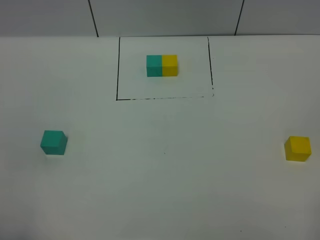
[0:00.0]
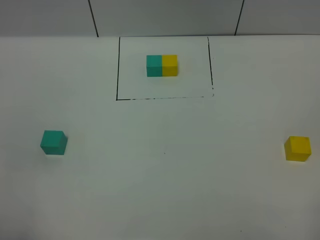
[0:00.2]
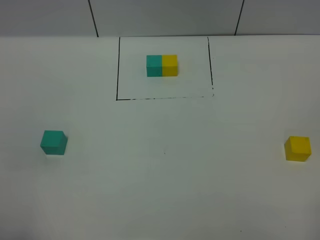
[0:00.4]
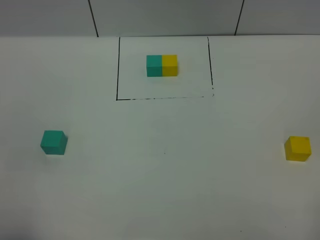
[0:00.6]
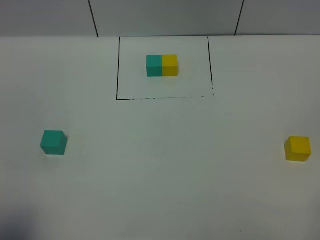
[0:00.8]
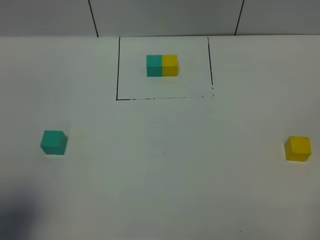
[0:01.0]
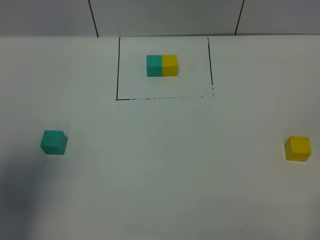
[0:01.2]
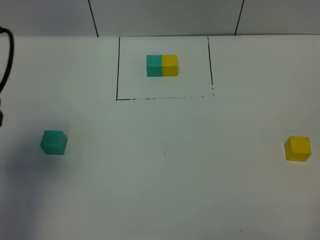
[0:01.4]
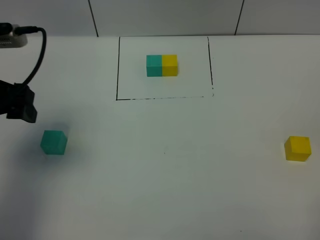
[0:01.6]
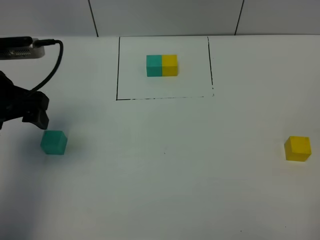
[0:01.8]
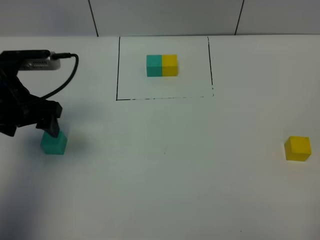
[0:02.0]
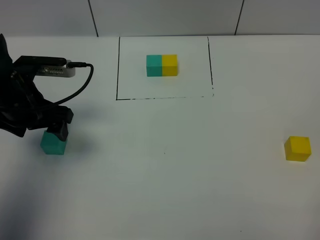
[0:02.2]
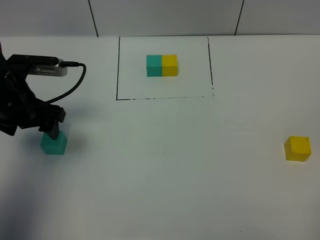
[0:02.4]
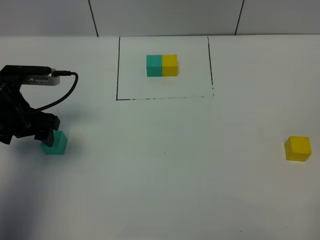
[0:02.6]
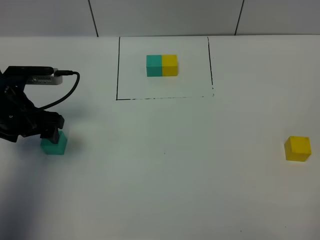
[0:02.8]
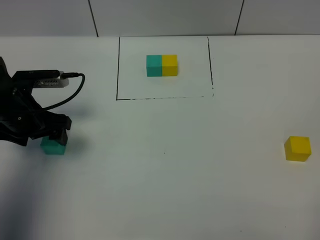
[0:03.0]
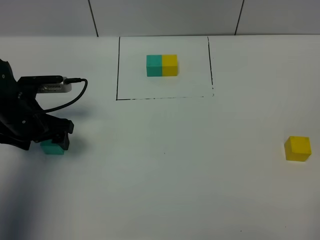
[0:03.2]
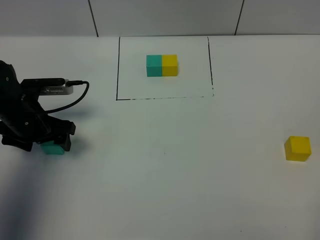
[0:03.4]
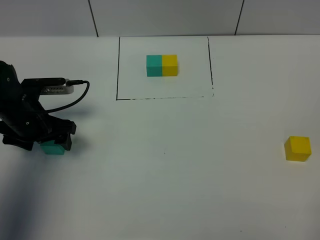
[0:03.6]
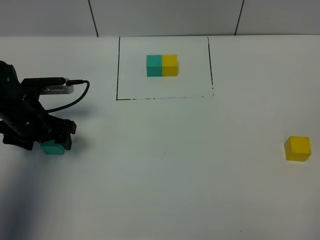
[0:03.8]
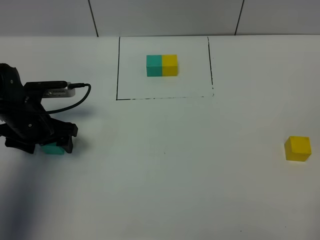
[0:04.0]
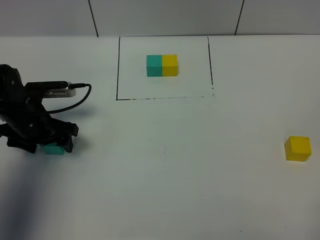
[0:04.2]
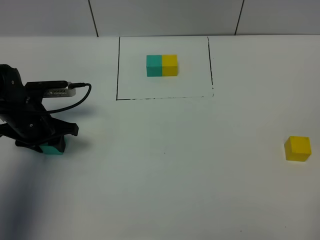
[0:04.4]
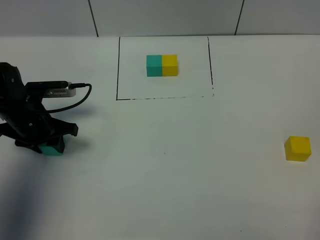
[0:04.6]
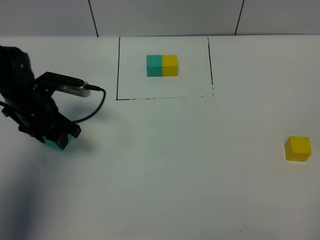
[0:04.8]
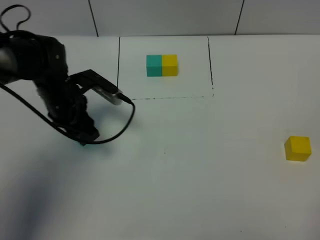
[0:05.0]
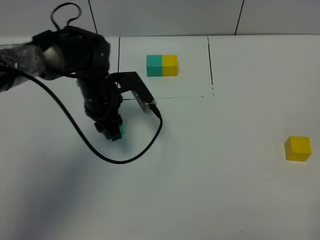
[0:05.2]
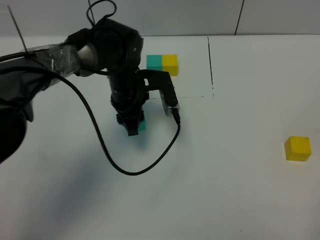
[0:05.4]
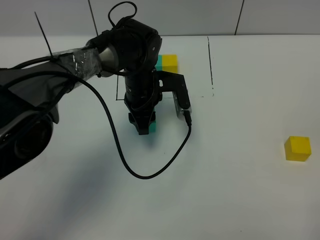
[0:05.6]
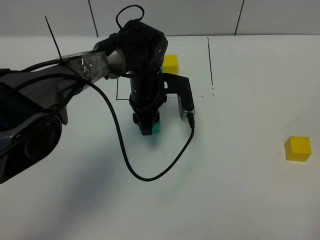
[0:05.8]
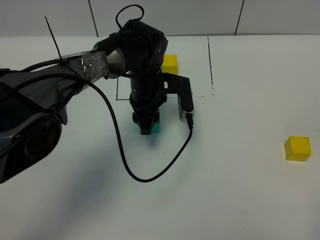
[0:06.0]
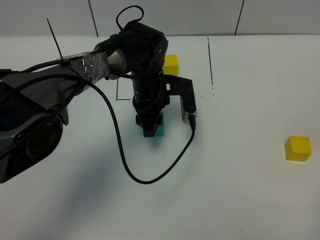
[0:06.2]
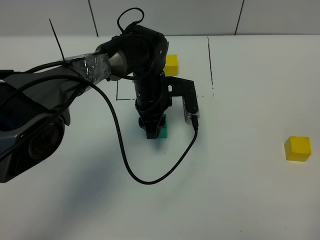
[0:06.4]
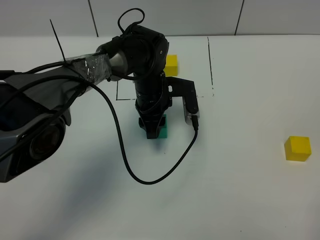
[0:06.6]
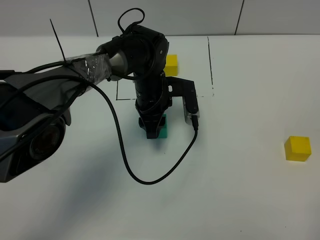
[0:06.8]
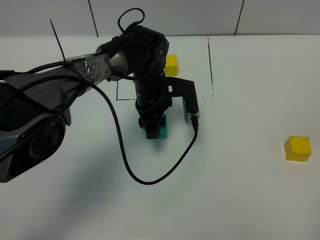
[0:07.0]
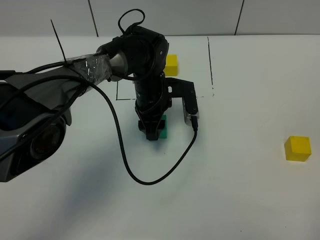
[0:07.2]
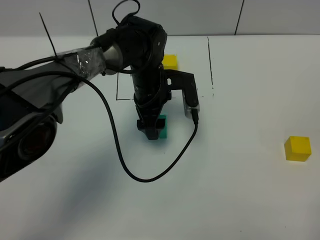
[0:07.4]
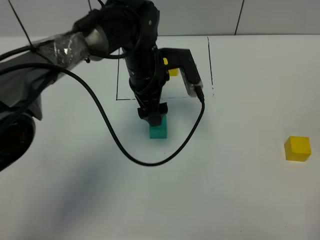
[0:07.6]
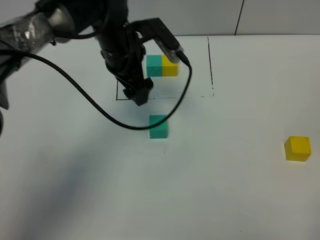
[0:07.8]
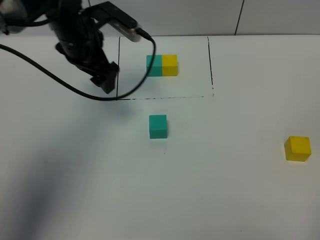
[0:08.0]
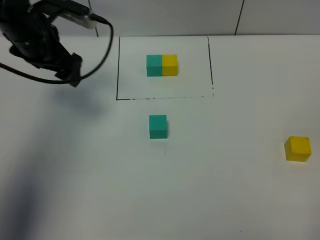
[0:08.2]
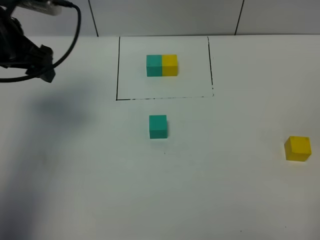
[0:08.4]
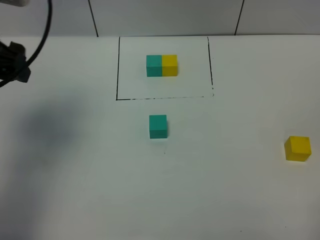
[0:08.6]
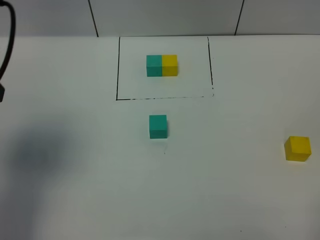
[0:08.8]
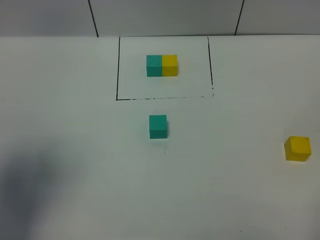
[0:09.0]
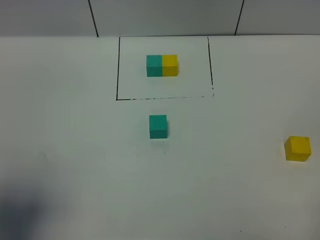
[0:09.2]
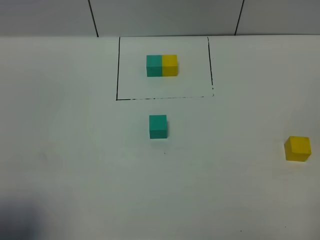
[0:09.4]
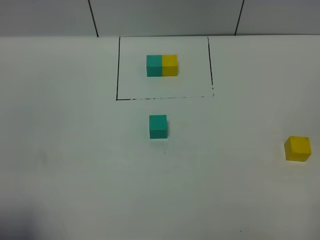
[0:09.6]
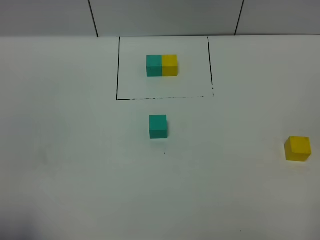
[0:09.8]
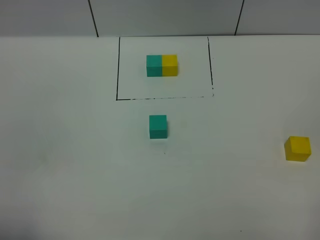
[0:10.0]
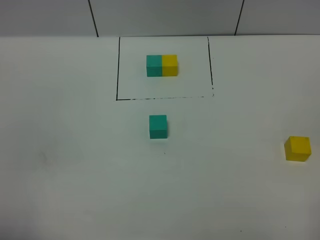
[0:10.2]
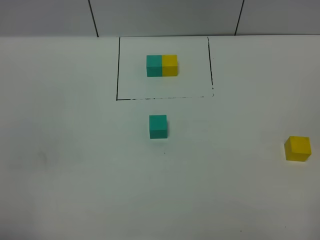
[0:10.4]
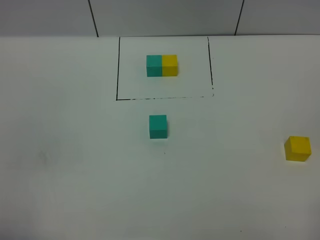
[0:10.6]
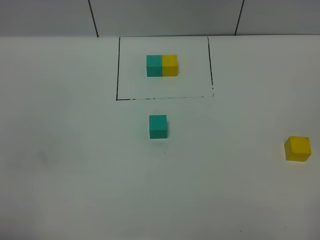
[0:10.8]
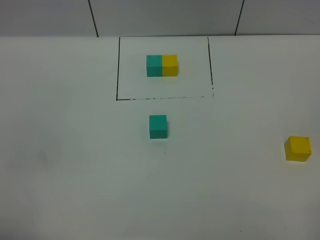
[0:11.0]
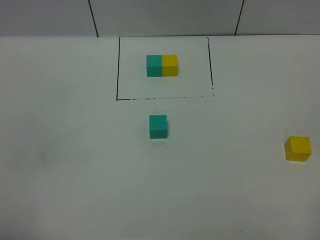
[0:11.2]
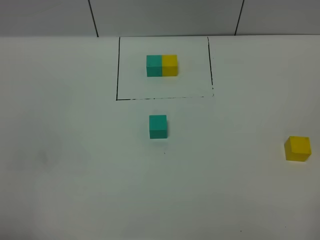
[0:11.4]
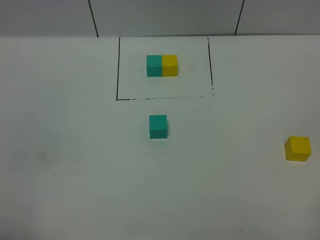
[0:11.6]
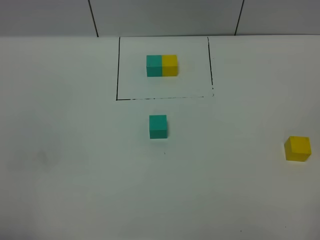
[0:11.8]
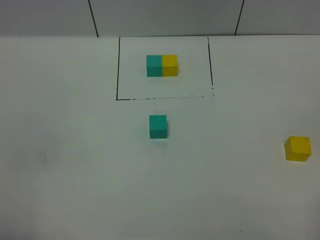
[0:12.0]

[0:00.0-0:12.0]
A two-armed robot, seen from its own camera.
Task of the whole recording: According to the building block template in front, assemble the scattered blocks together.
Step, 0:01.2 to 0:07.2: Put the green cube in the center of the table.
0:00.0 to 0:01.6: The left gripper moves forward, some 25 cm.
0:01.6 to 0:03.0: The left gripper is displaced downward by some 15 cm.
0:03.0 to 0:04.4: The left gripper closes its fingers.
0:04.4 to 0:06.0: The left gripper shifts roughly 25 cm to the right.
0:06.0 to 0:07.6: The left gripper is displaced upward by roughly 5 cm, and opens.
0:07.6 to 0:09.0: The left gripper is displaced to the left, backward and upward by approximately 40 cm.
0:09.0 to 0:10.4: The left gripper heads backward and downward, covering approximately 20 cm.
0:10.4 to 0:12.0: The two grippers keep their place.

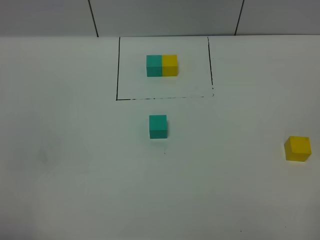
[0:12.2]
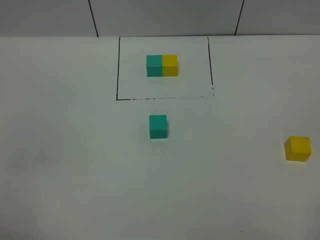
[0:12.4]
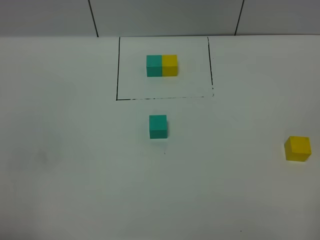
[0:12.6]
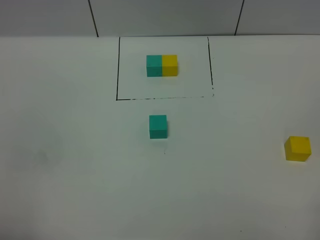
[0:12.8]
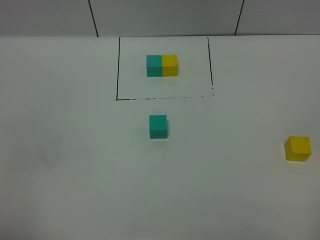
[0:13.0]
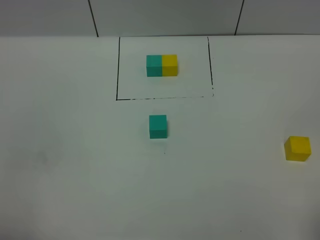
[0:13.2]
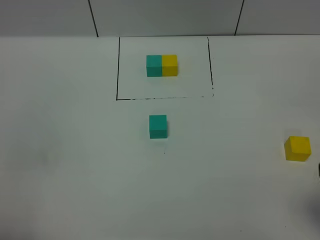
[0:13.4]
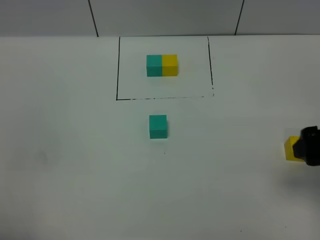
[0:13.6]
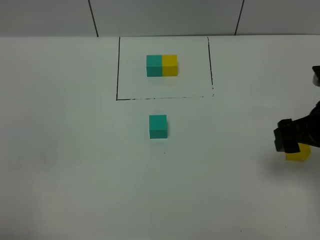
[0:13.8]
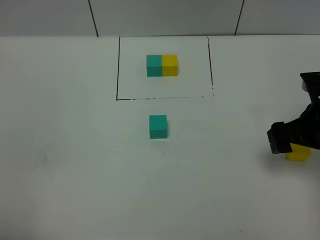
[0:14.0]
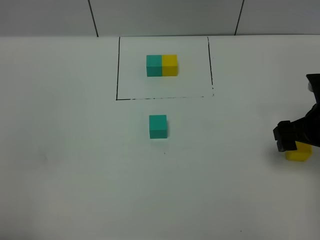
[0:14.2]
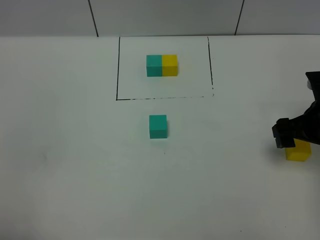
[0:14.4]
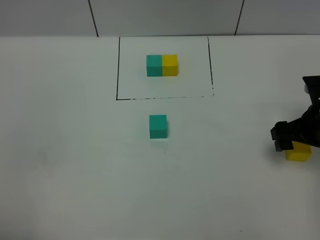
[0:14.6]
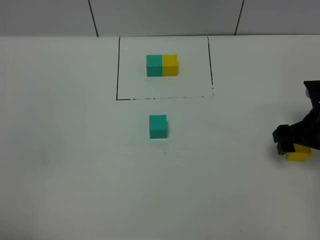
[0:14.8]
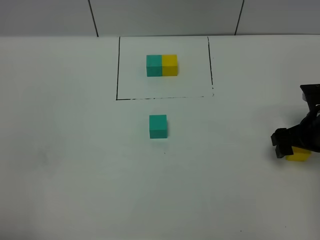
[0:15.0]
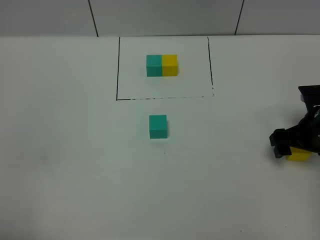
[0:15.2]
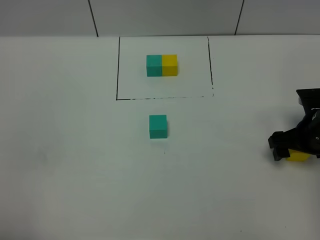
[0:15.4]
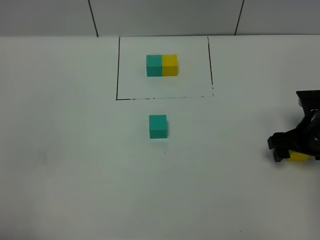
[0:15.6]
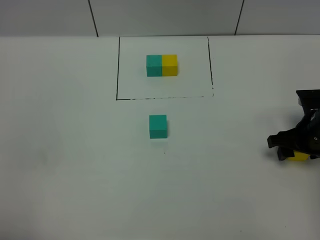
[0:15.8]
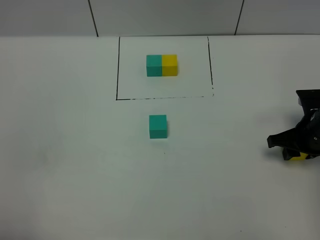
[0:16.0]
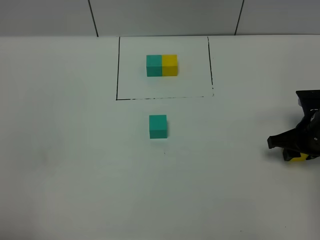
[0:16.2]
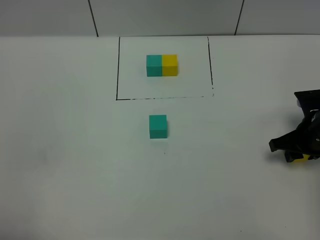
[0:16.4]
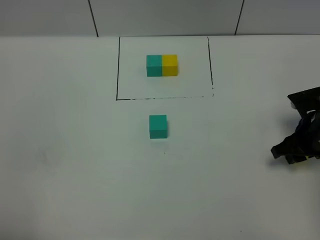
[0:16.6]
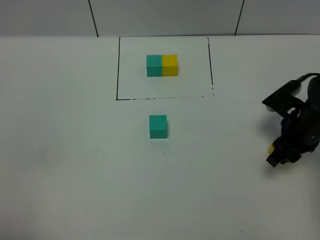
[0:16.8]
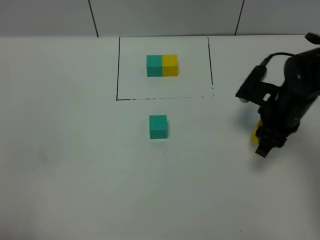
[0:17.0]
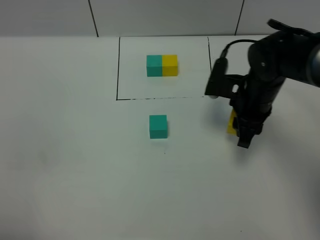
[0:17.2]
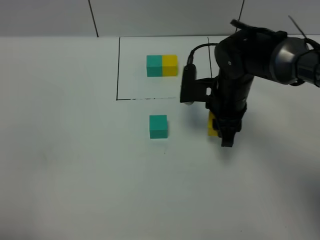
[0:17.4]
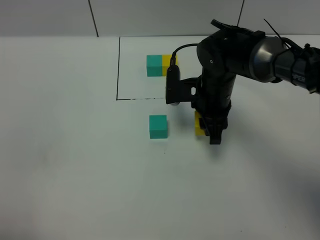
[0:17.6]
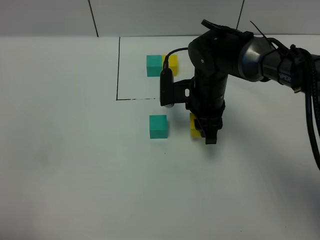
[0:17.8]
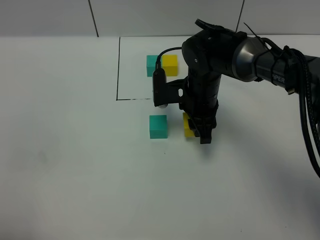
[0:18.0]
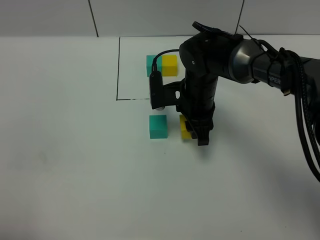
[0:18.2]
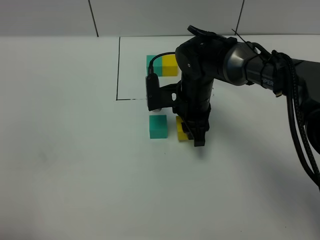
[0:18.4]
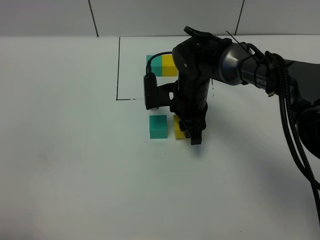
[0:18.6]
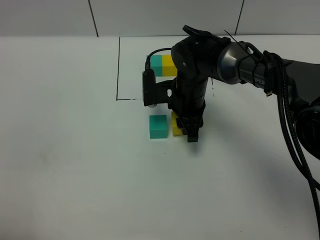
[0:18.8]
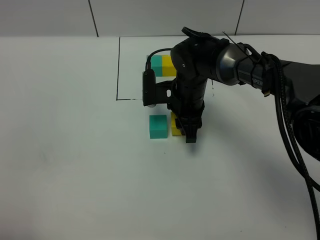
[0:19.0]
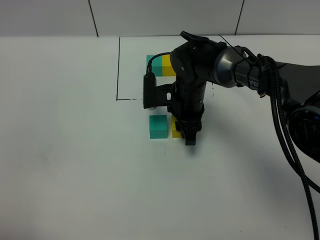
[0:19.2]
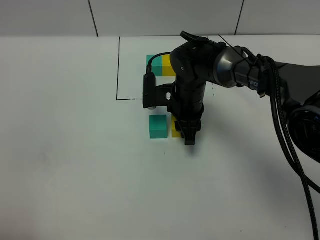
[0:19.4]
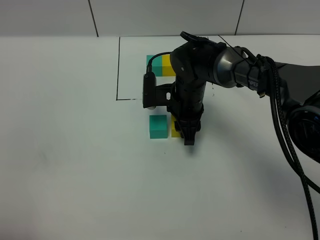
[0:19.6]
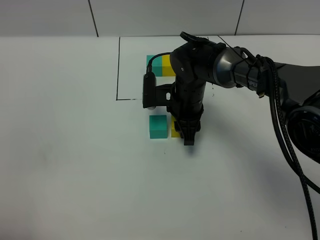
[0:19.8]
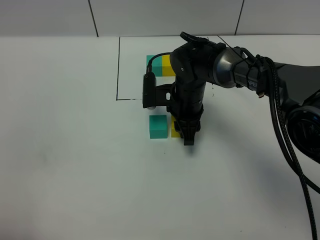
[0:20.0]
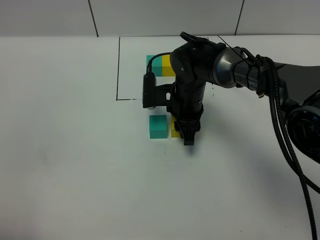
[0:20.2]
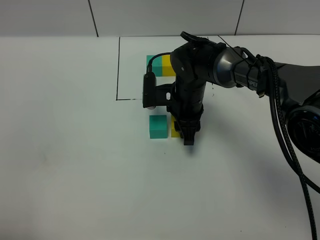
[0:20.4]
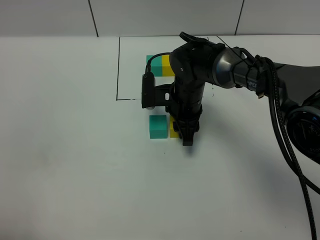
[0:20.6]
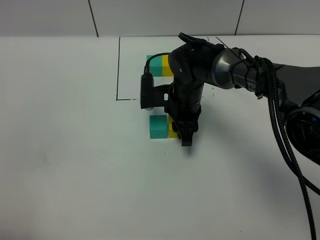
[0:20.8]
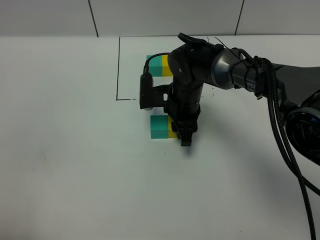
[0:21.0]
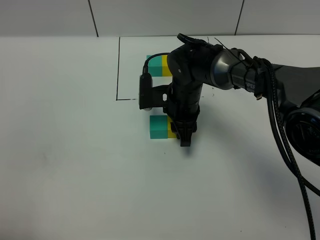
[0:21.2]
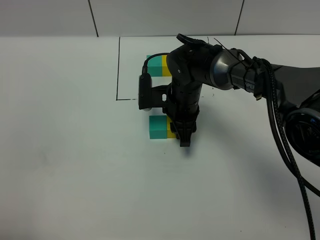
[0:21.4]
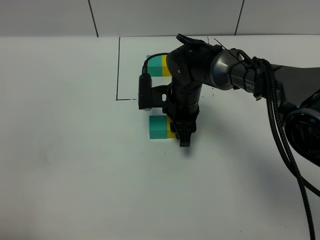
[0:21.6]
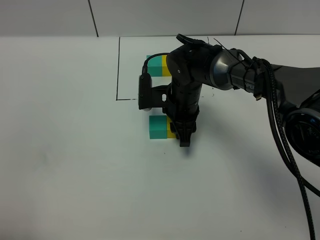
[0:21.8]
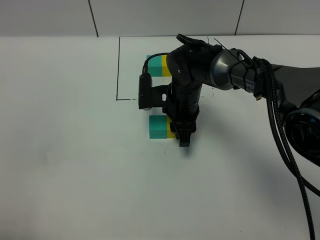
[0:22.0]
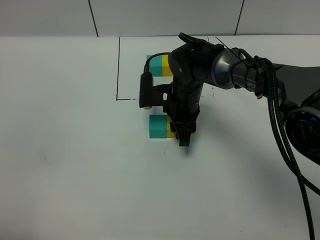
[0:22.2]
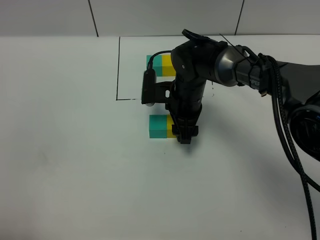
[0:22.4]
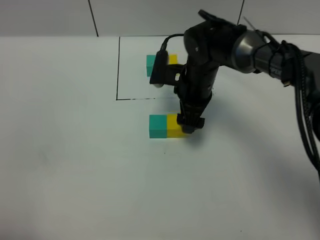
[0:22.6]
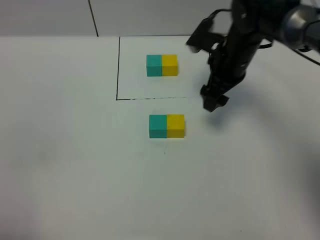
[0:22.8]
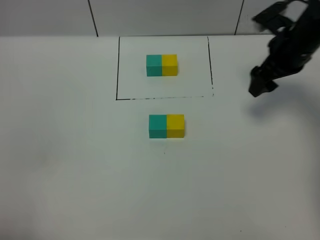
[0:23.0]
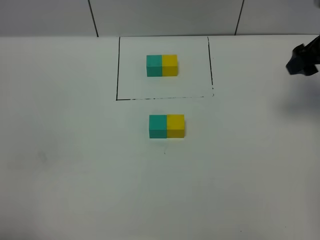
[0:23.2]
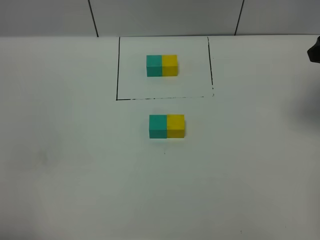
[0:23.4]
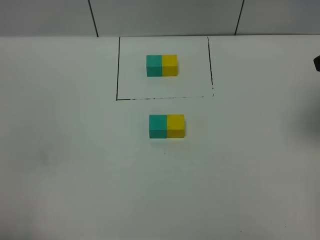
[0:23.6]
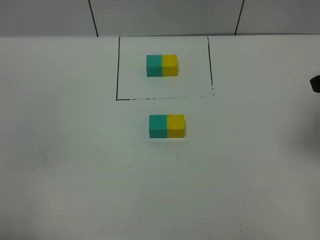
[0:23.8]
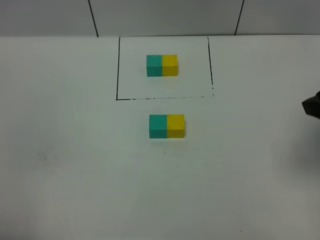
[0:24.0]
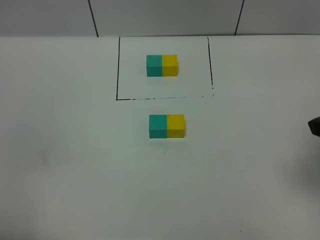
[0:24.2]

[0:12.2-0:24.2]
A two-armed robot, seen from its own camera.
Task of the whole recording: According to the building block template in front, assemble the scattered blocks together.
Step, 0:12.2 to 0:22.4: Put the yellow cube on the right of the green cube.
0:12.2 to 0:13.8: The right gripper shifts approximately 25 cm forward.
0:13.8 to 0:15.2: The right gripper heads downward, covering roughly 10 cm.
0:15.2 to 0:16.6: The right gripper closes its fingers.
0:16.6 to 0:18.2: The right gripper heads to the left and forward, covering approximately 25 cm.
0:18.2 to 0:19.8: There are only small adjustments of the grippers.
0:19.8 to 0:21.2: Both grippers stay about where they are.
0:21.2 to 0:22.6: The right gripper shifts by approximately 5 cm, and opens its fingers.
0:22.6 to 0:24.2: The right gripper goes approximately 35 cm backward, to the right and upward.
